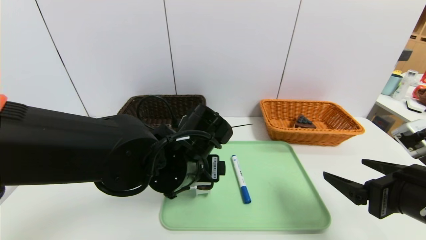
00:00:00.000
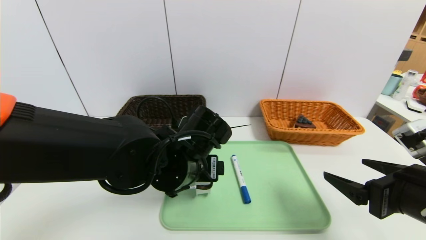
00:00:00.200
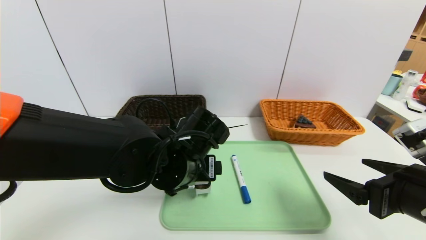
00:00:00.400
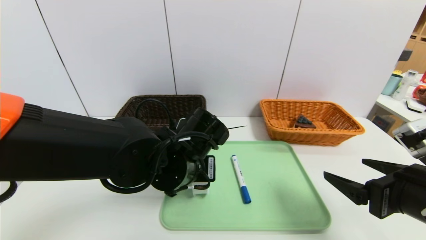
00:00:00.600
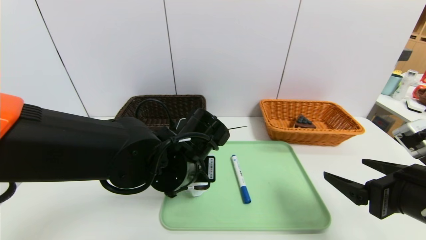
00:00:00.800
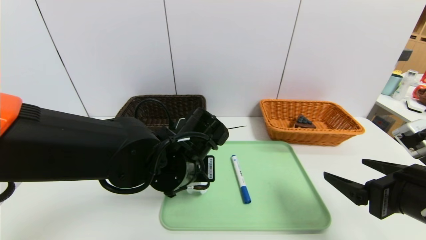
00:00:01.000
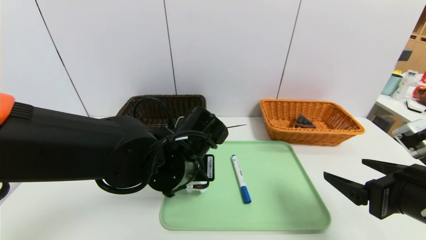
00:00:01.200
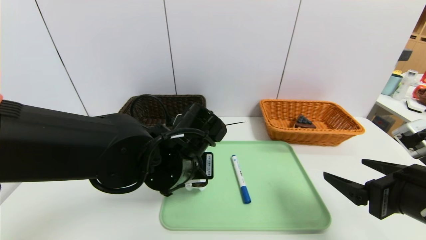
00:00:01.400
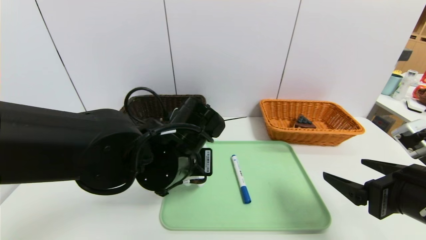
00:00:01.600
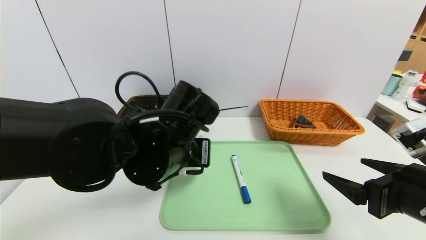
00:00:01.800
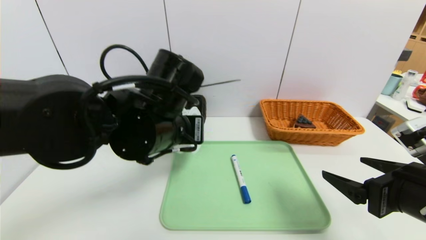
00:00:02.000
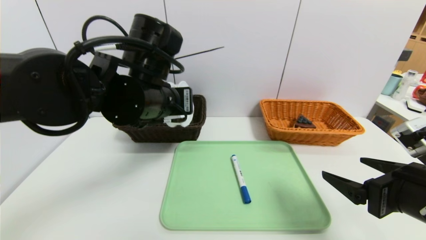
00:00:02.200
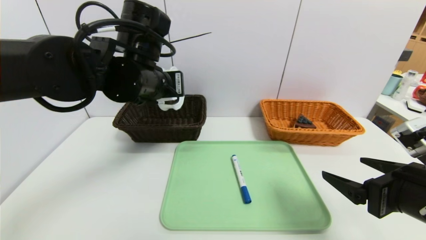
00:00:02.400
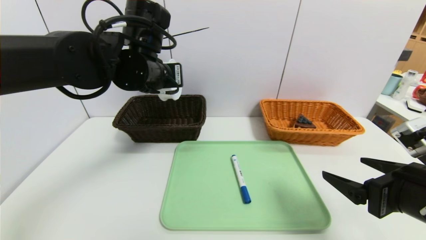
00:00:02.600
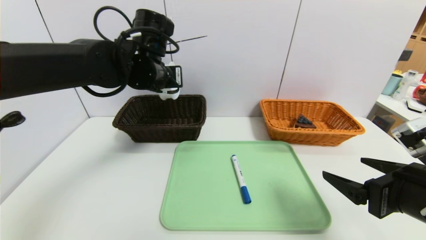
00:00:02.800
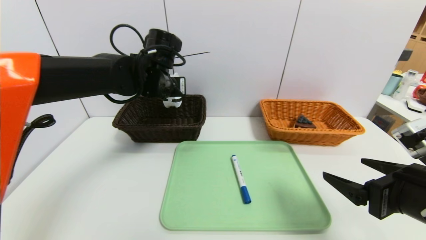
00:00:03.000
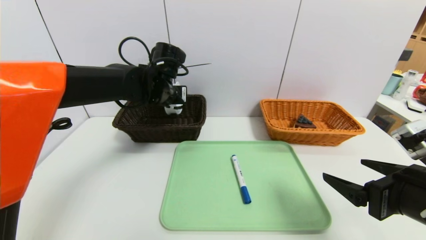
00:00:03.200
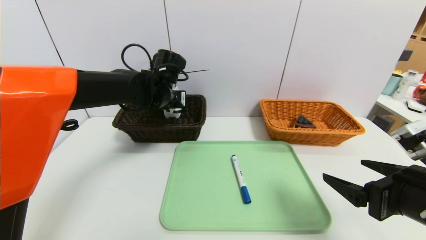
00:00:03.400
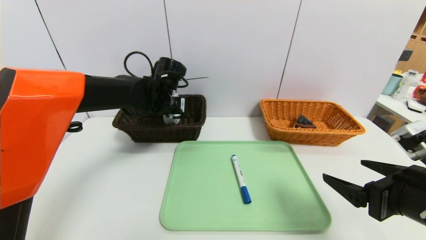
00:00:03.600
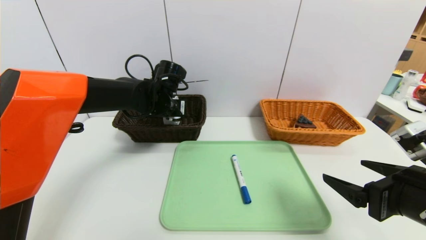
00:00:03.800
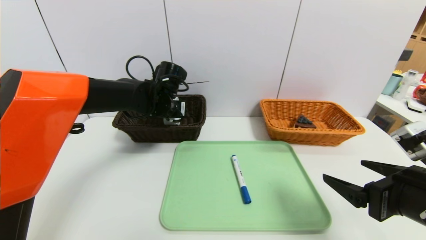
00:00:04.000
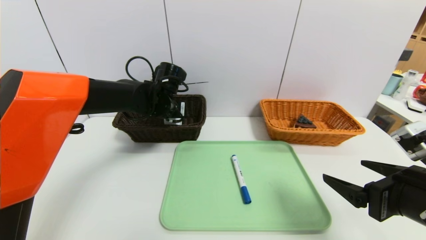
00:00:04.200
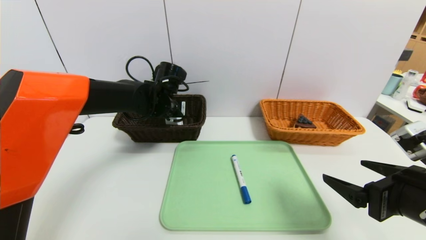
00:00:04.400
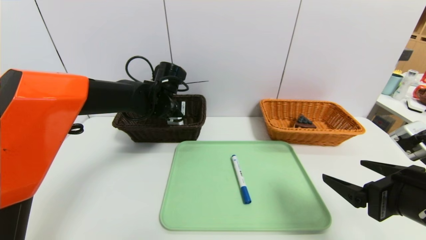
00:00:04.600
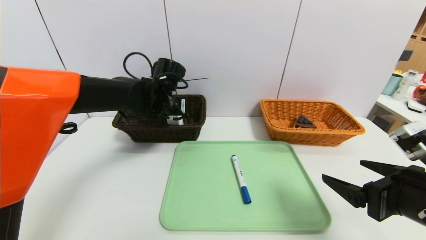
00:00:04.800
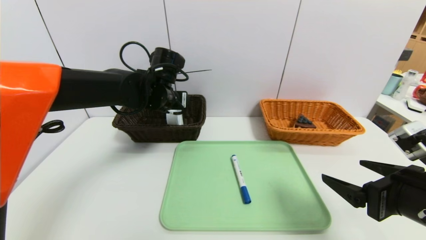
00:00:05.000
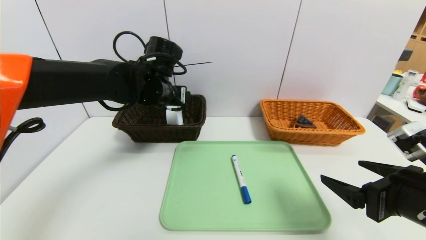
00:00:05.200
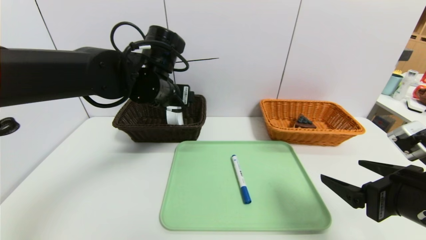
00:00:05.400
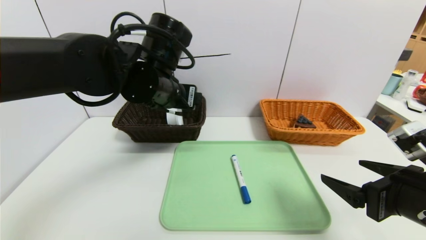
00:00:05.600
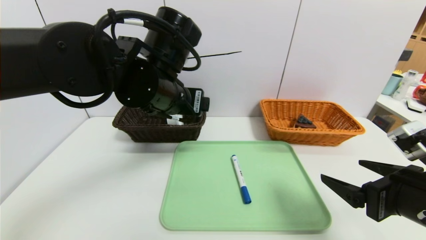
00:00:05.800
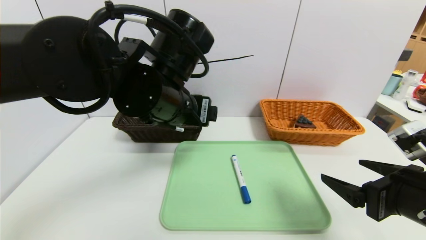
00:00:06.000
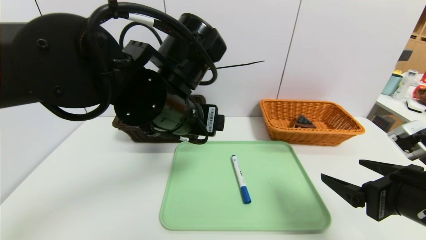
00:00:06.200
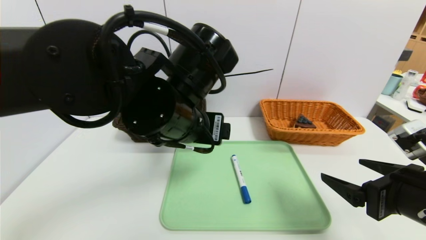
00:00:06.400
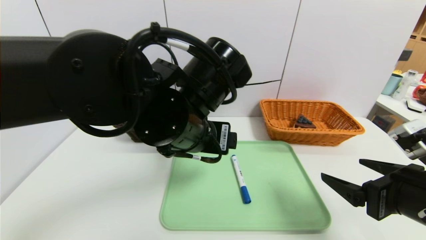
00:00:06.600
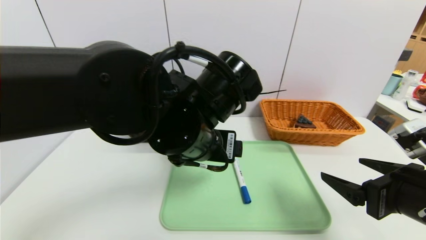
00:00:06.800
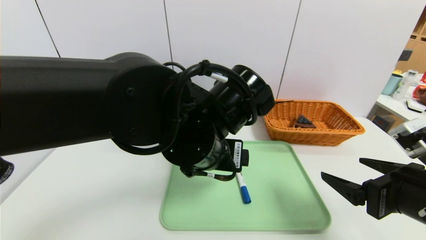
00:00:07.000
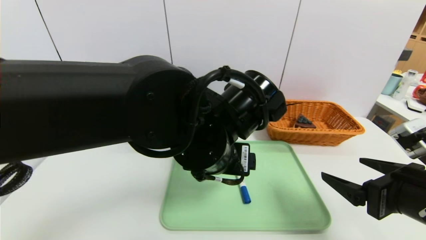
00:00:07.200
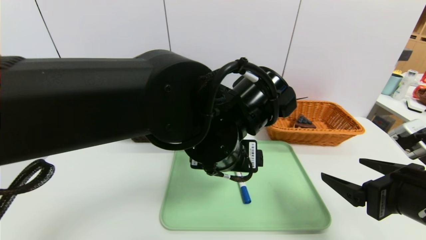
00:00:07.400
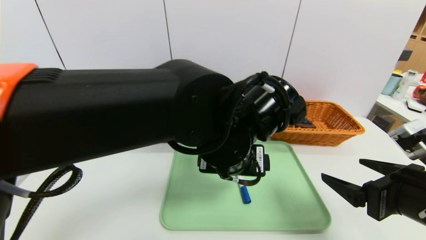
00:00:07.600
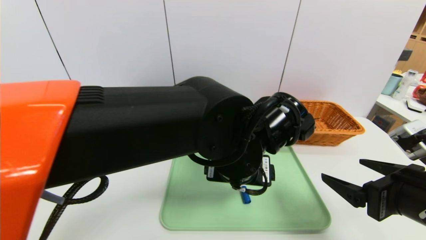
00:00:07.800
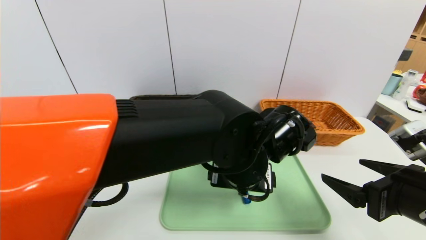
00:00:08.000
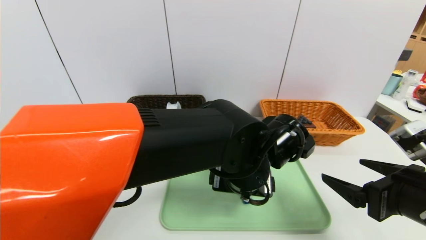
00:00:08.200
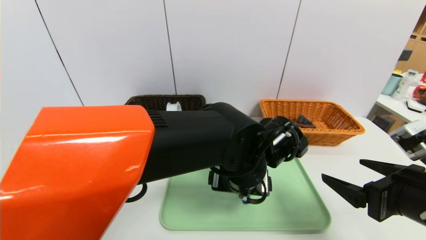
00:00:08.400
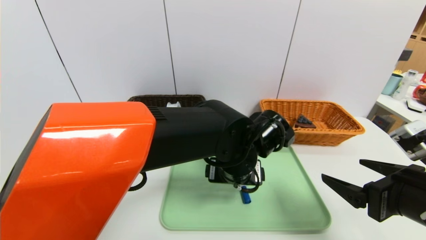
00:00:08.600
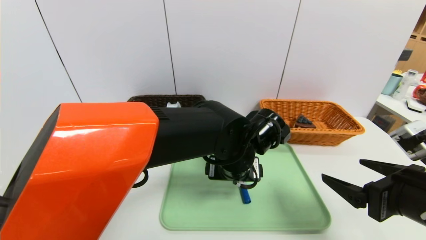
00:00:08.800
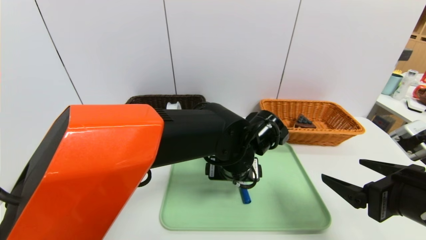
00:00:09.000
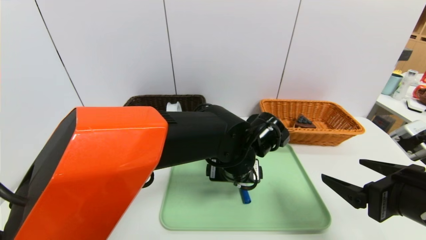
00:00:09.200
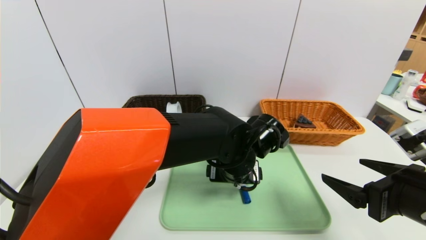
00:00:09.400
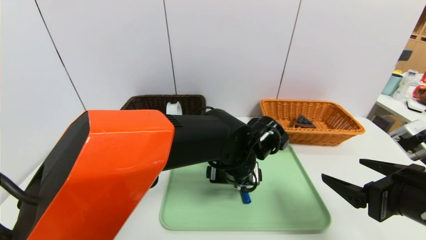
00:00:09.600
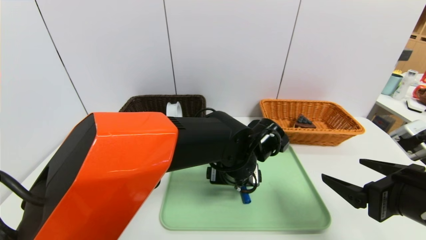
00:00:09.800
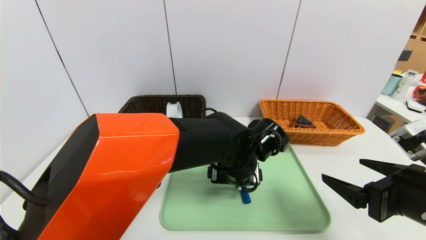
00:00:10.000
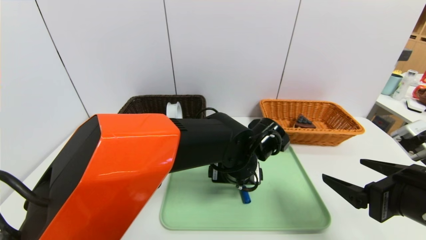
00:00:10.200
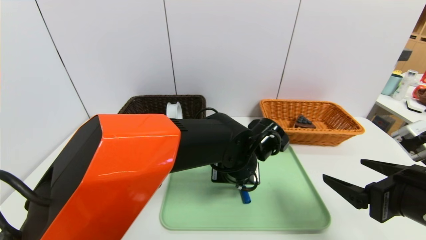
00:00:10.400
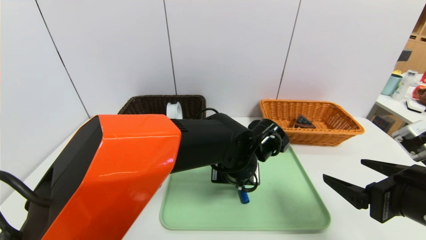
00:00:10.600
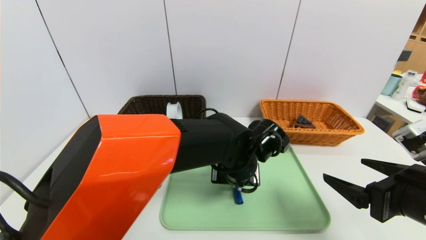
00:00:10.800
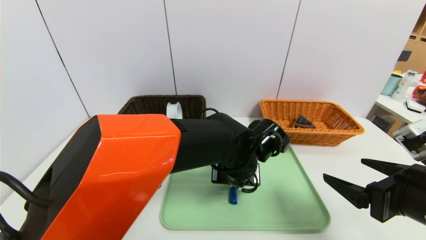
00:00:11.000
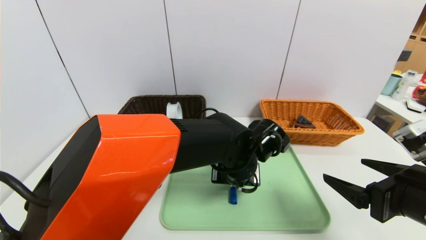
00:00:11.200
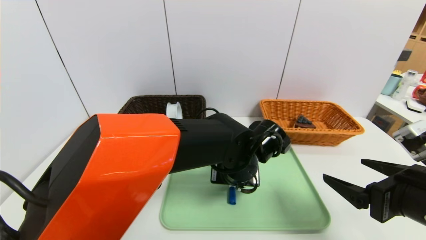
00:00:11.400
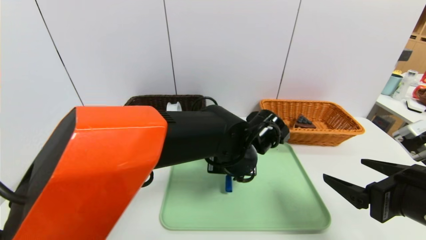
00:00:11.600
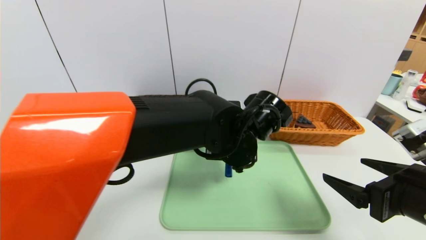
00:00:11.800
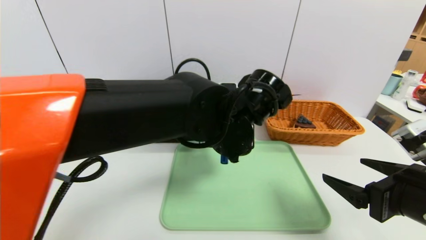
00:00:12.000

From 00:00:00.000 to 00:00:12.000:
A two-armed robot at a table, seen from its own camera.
Task of the whole recording: place the food in the right basket with the right gripper, and place the non food items in the left basket with the left gripper.
Step, from 00:00:00.000 to 00:00:04.600: Grasp the tape and put it in the left basket.
From 00:00:00.000 to 00:00:01.600: The left gripper closes up.
From 00:00:01.600 to 00:00:03.000: The left gripper shifts roughly 15 cm forward.
From 00:00:03.000 to 00:00:04.400: The left gripper is displaced downward by approximately 5 cm, and opens.
From 00:00:04.400 to 00:00:06.000: The left gripper travels backward and upward by some 20 cm.
From 00:00:06.000 to 00:00:07.600: The left gripper heads to the right and downward, covering approximately 10 cm.
From 00:00:07.600 to 00:00:09.000: The left gripper shifts approximately 10 cm downward and forward.
From 00:00:09.000 to 00:00:10.400: There are only small adjustments of the grippers.
From 00:00:10.400 to 00:00:12.000: The left gripper moves upward, some 10 cm, and closes up.

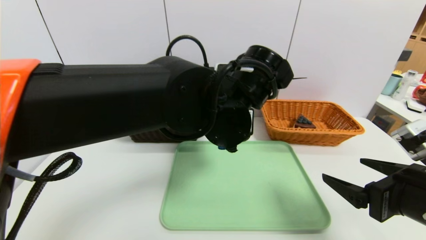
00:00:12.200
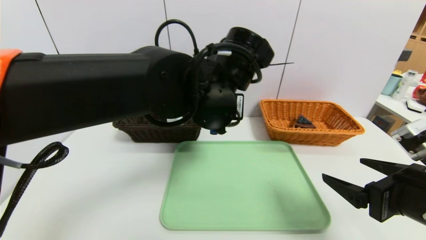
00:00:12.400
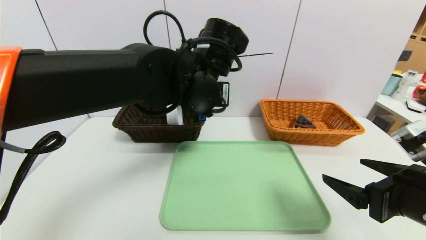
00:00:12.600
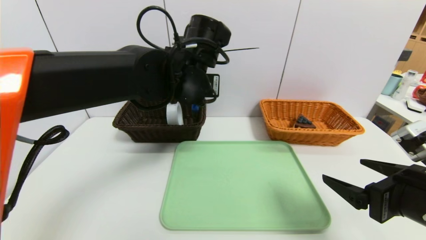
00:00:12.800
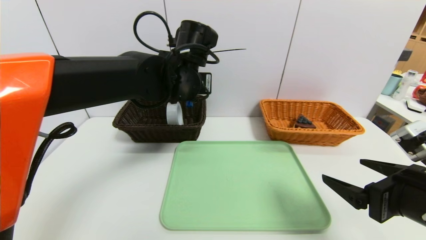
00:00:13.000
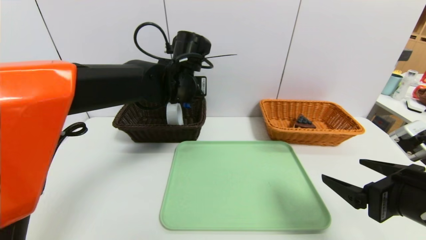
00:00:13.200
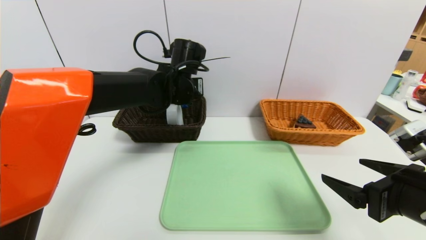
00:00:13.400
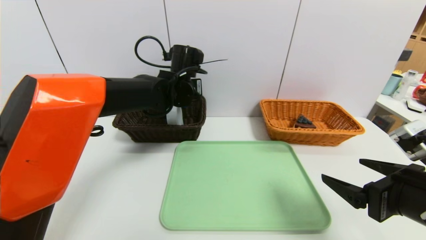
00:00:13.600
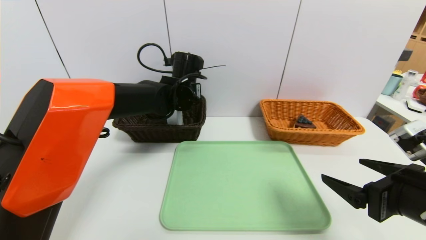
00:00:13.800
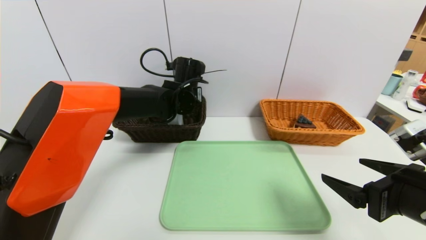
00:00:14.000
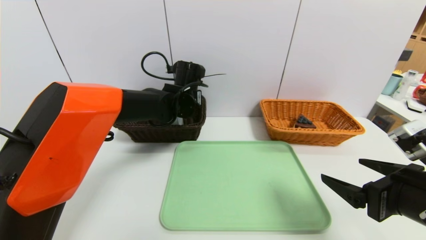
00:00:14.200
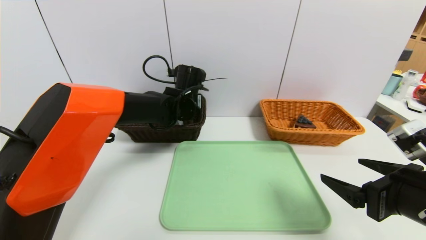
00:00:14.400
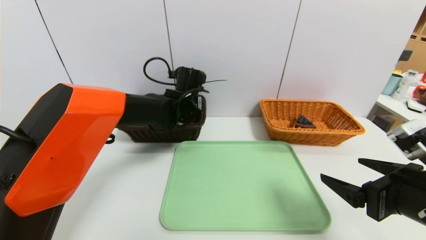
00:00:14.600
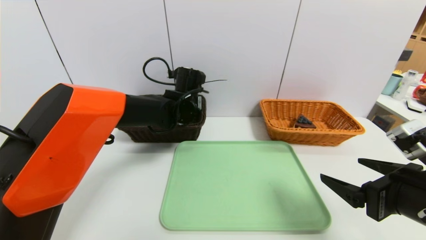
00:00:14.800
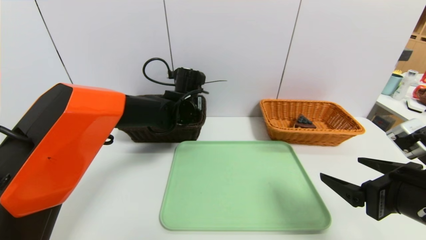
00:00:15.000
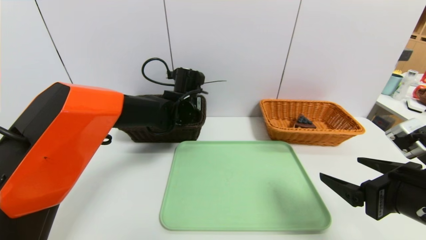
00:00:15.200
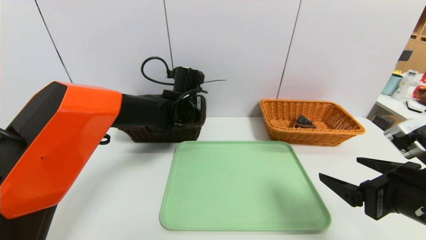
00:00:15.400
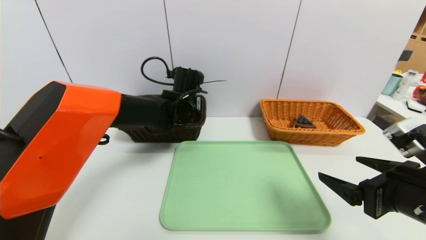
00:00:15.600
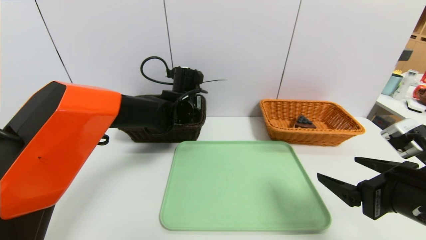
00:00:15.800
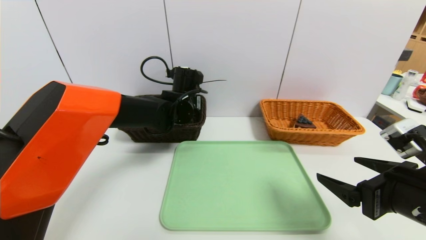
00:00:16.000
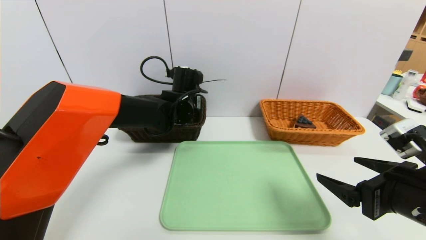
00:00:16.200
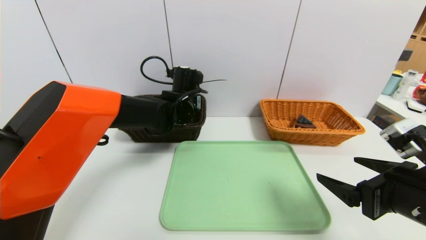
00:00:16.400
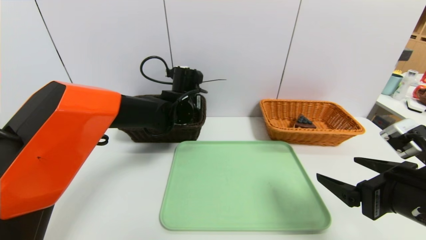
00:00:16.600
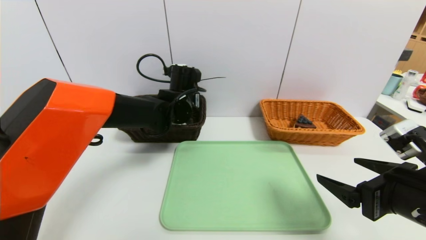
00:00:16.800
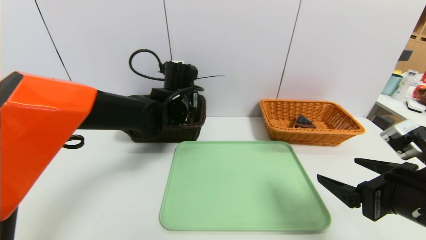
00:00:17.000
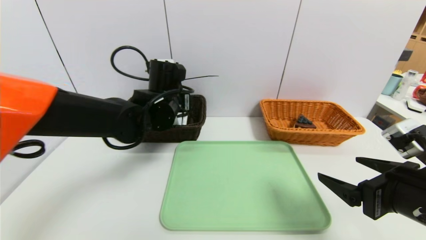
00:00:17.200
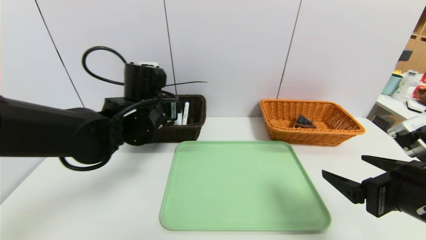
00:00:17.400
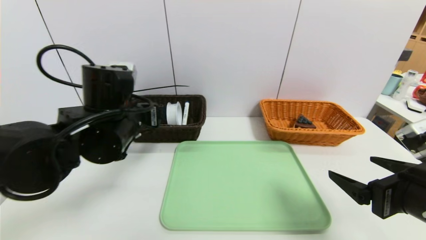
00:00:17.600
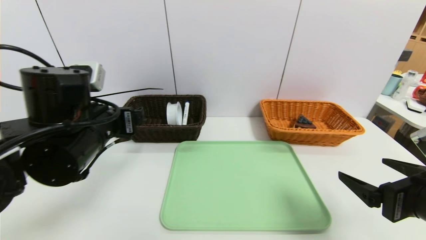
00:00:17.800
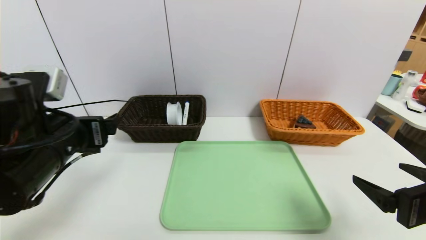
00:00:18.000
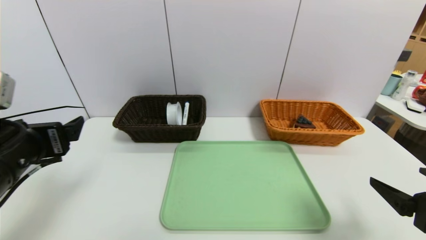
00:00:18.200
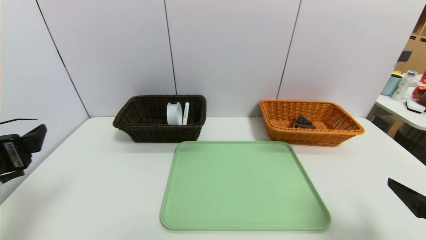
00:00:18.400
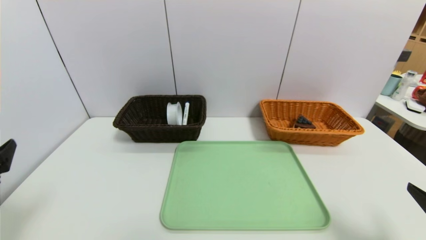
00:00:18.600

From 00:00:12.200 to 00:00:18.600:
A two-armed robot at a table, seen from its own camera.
Task of the whole recording: place the food in the right basket with the right gripper, and place the non food items in the left basket with the left gripper.
Step, from 00:00:12.200 to 00:00:16.400: Grasp the blue marker pen and put it in the left basket.
From 00:00:12.200 to 00:00:13.800: The left gripper is displaced forward and to the left by about 20 cm.
From 00:00:13.800 to 00:00:15.400: The grippers move only a little.
From 00:00:15.400 to 00:00:17.000: The left gripper opens its fingers.
From 00:00:17.000 to 00:00:18.600: The left gripper is displaced backward and to the left by about 35 cm; the right gripper is displaced backward and to the right by about 10 cm.
